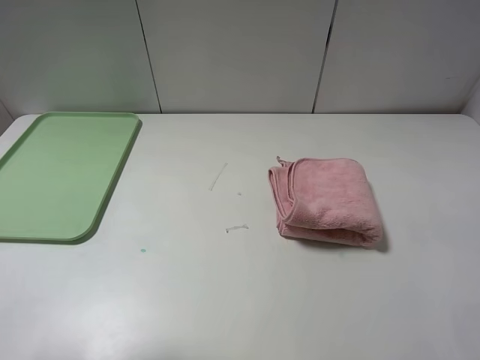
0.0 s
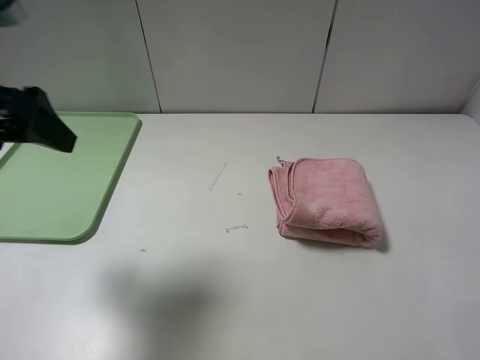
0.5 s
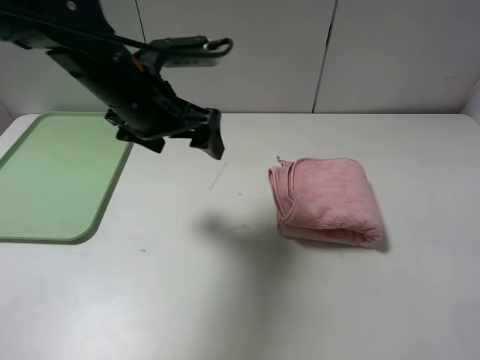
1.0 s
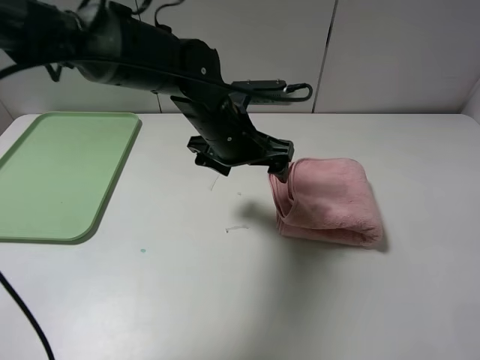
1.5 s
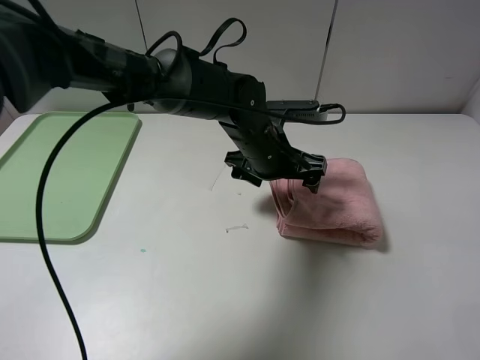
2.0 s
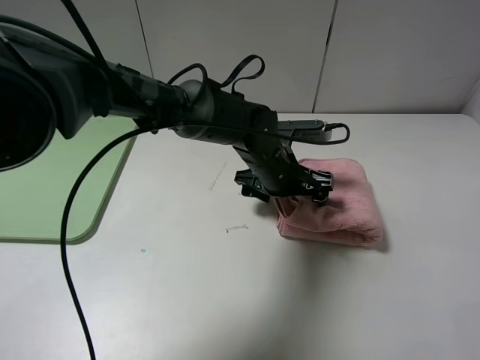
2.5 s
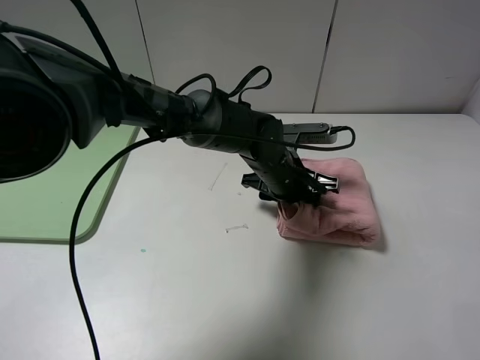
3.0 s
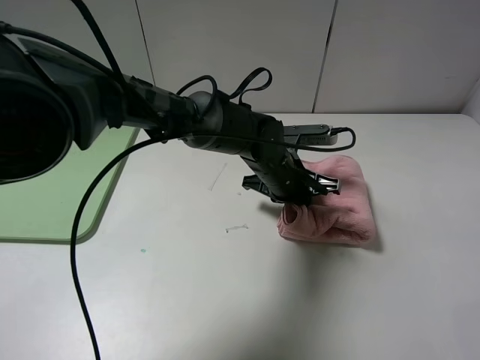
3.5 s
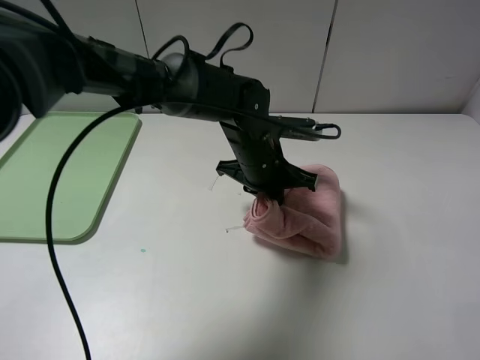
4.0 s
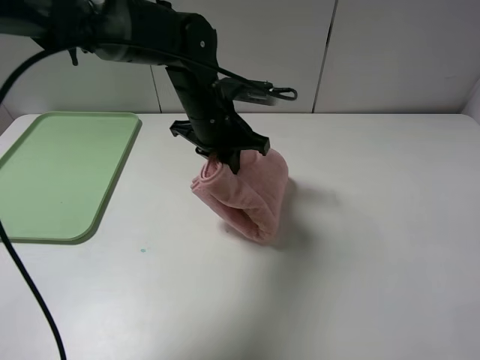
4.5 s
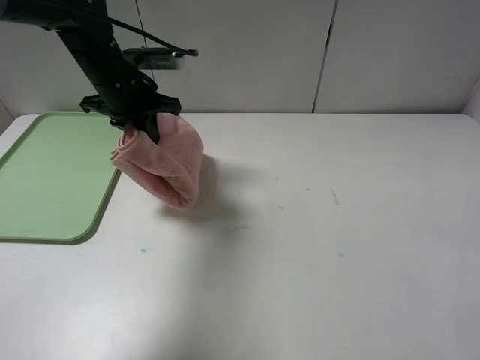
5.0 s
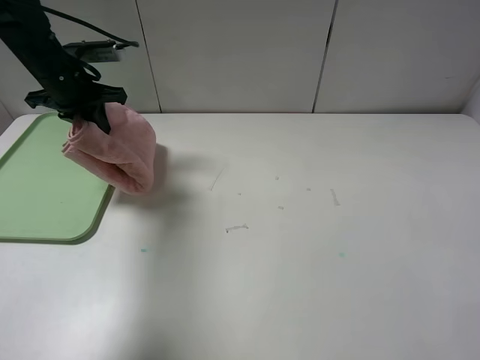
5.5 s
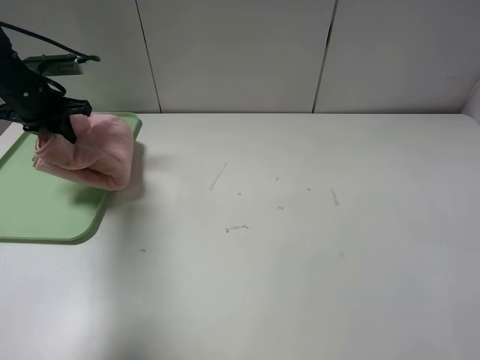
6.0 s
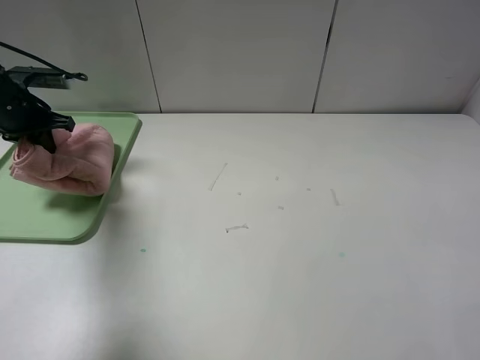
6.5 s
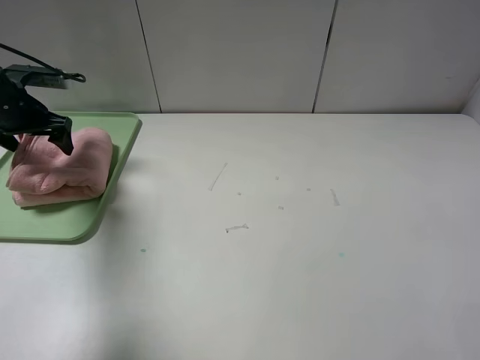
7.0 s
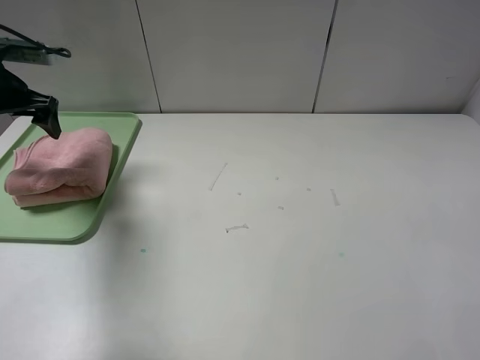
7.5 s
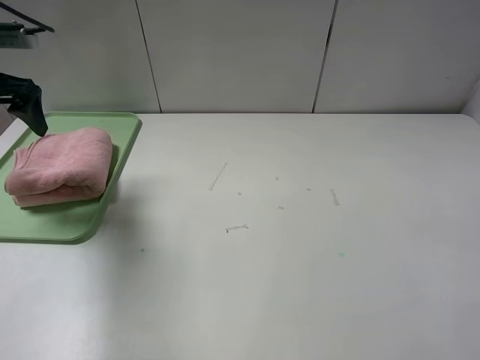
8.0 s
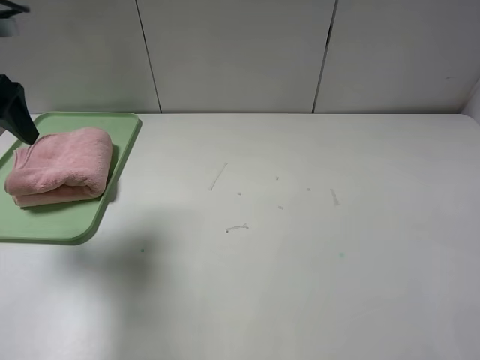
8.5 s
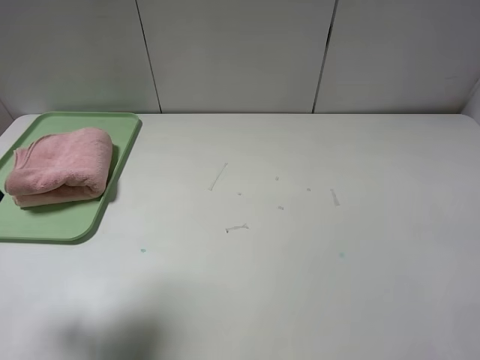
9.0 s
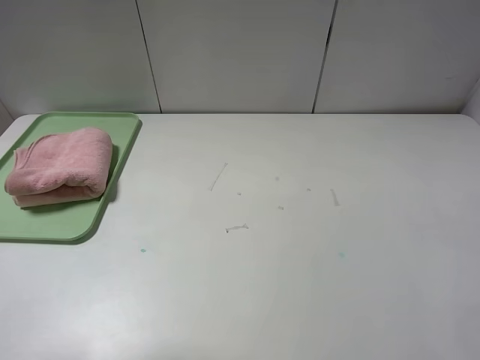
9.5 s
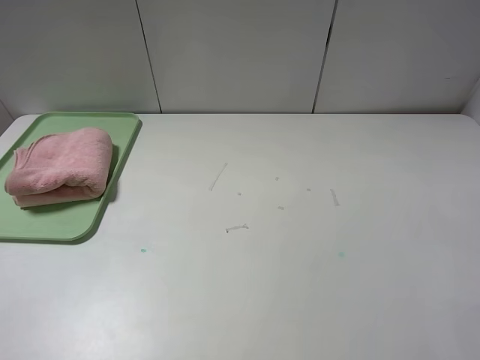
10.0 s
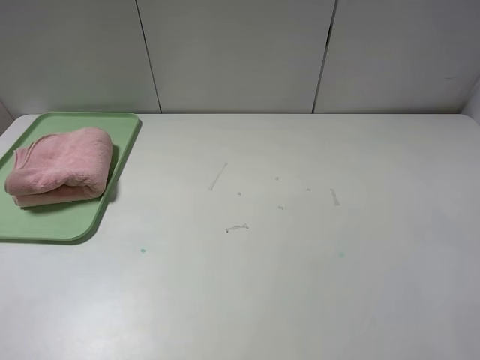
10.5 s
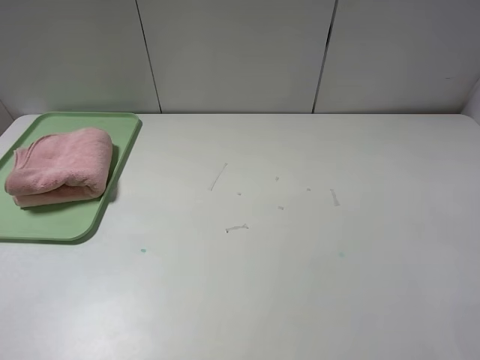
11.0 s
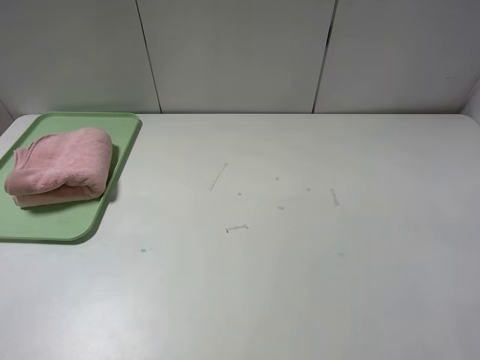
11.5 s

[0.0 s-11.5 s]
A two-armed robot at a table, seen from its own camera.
Step, 0.0 to 7.0 s: Place the folded pink towel on the tray with the left gripper.
0.0 to 2.0 s: The left gripper goes about 50 cm to the right, forward and downward.
2.0 to 4.0 s: The left gripper closes.
4.0 to 6.0 s: The left gripper heads to the left, covering approximately 35 cm.
6.0 to 7.5 s: The left gripper moves about 5 cm, and opens up.
7.5 to 9.5 s: The left gripper travels backward by approximately 30 cm.
